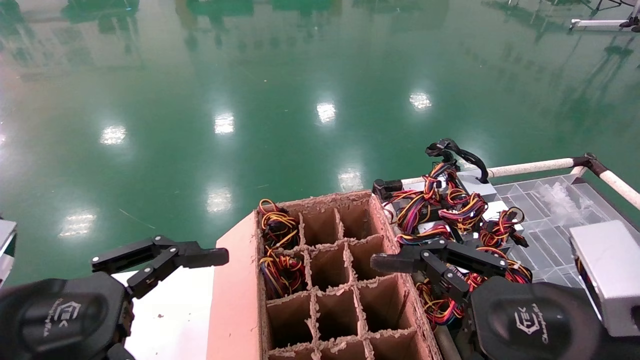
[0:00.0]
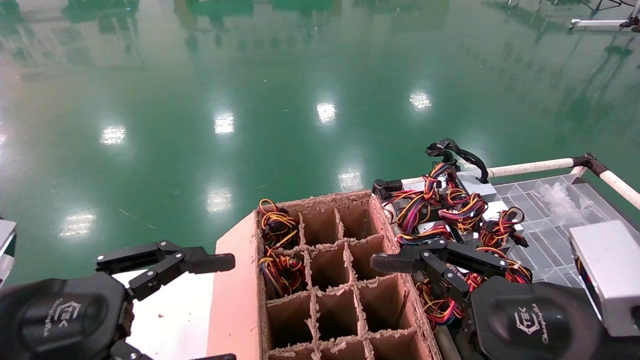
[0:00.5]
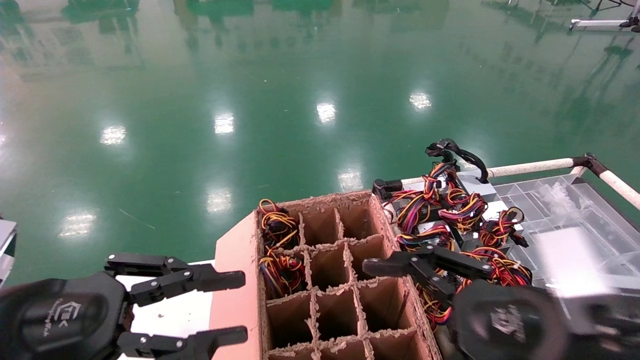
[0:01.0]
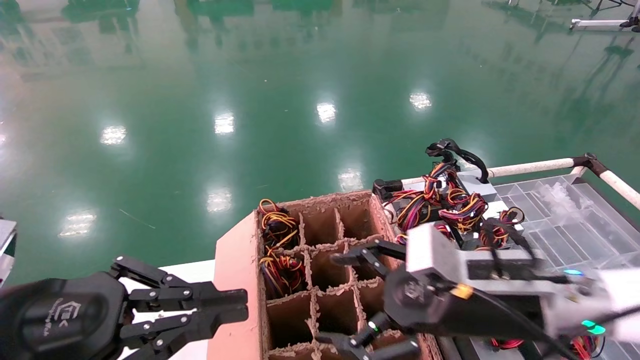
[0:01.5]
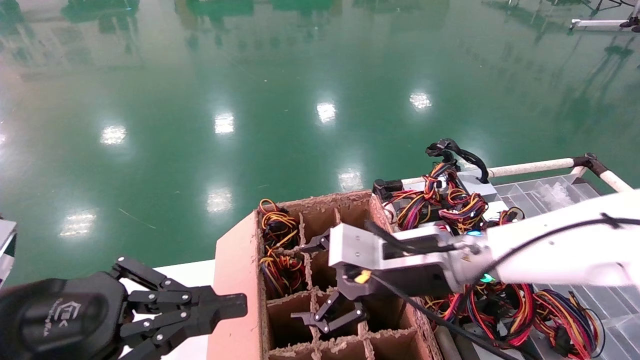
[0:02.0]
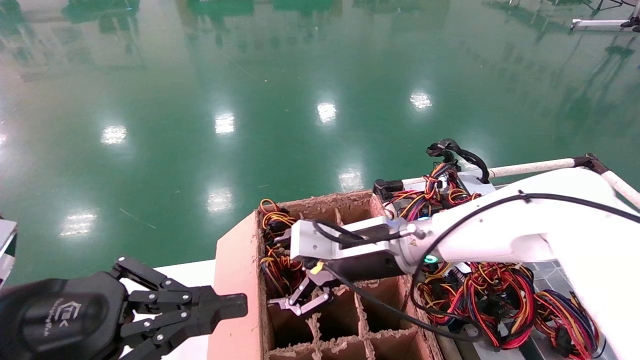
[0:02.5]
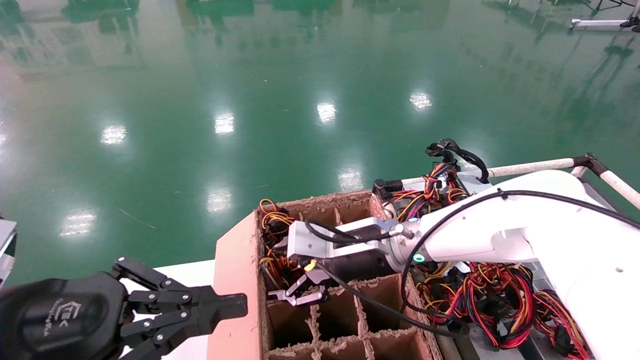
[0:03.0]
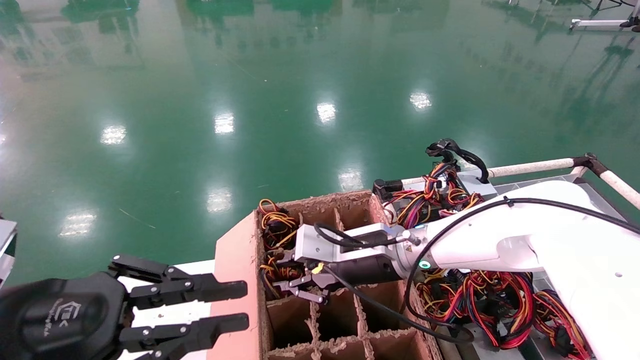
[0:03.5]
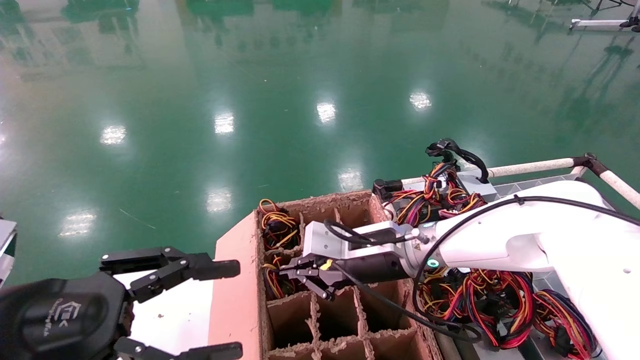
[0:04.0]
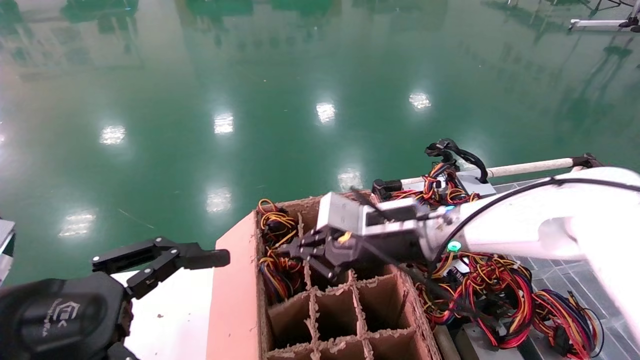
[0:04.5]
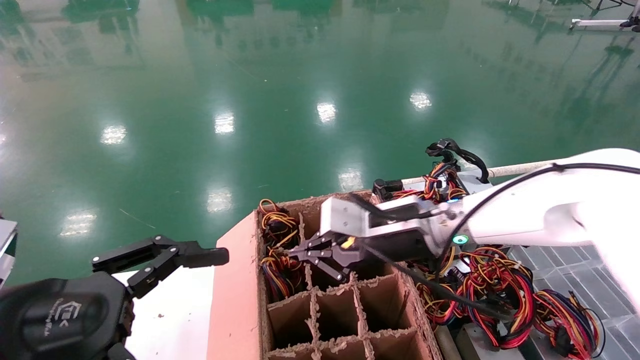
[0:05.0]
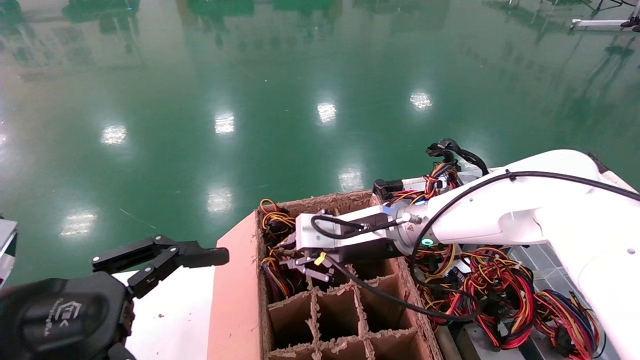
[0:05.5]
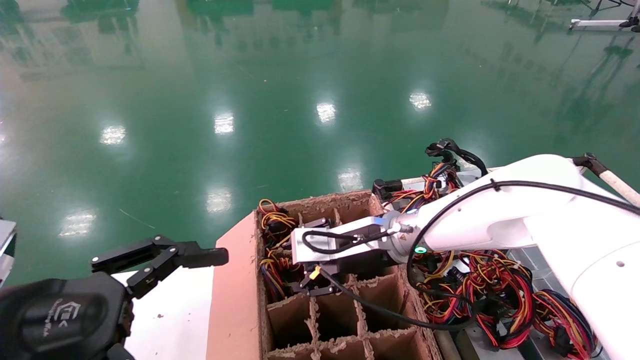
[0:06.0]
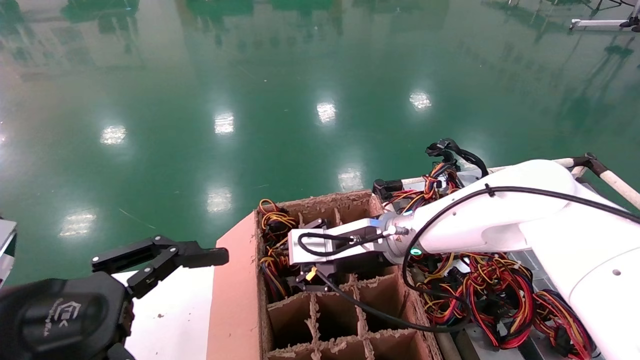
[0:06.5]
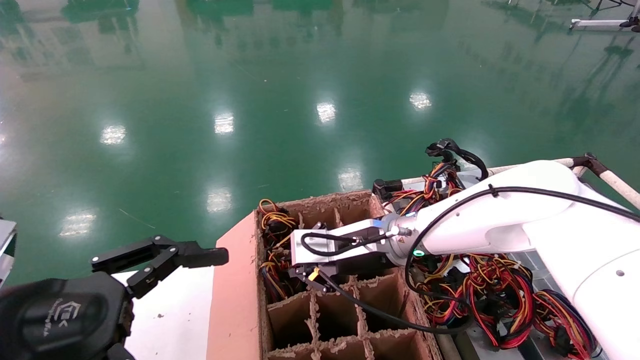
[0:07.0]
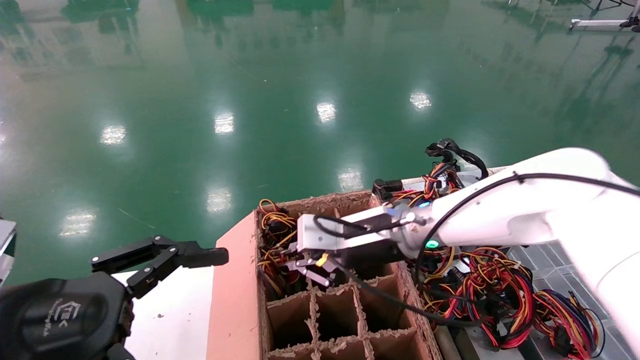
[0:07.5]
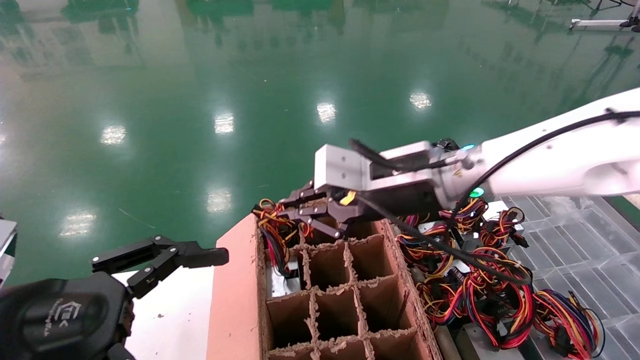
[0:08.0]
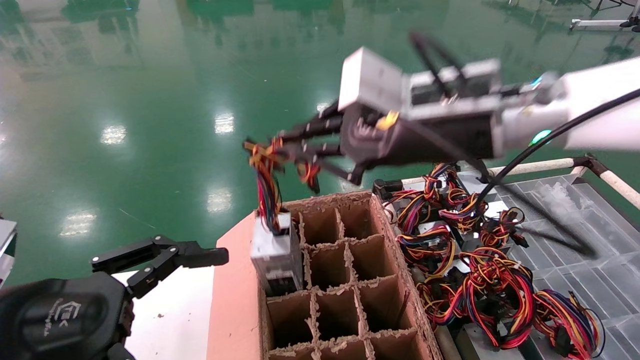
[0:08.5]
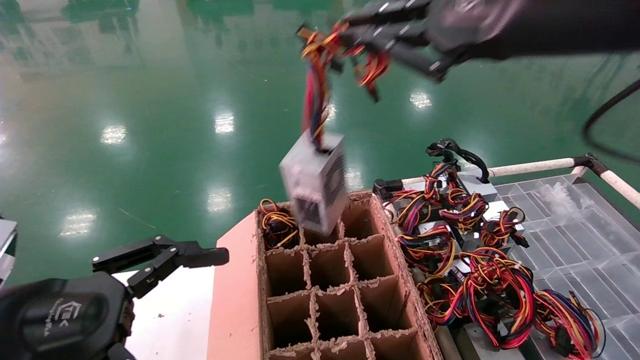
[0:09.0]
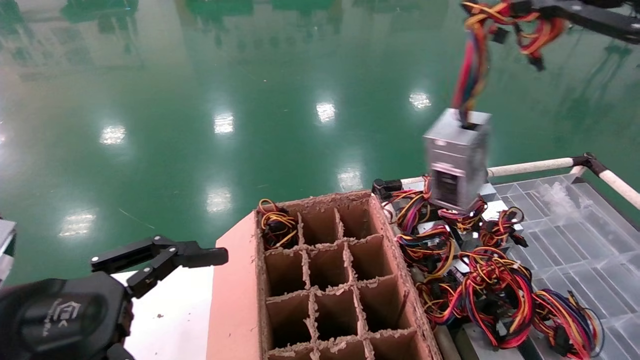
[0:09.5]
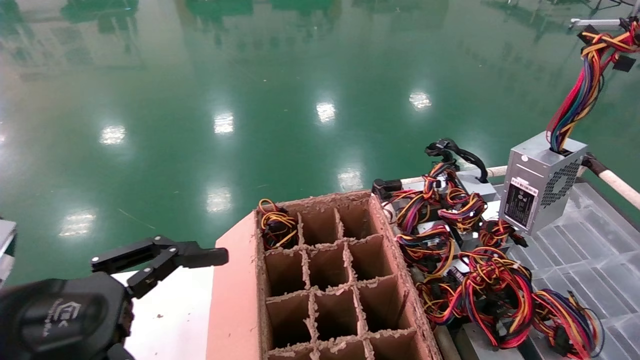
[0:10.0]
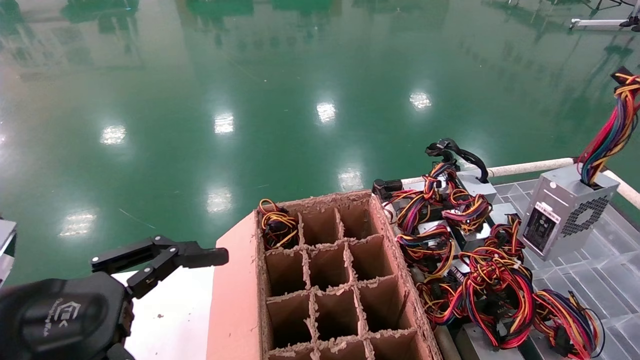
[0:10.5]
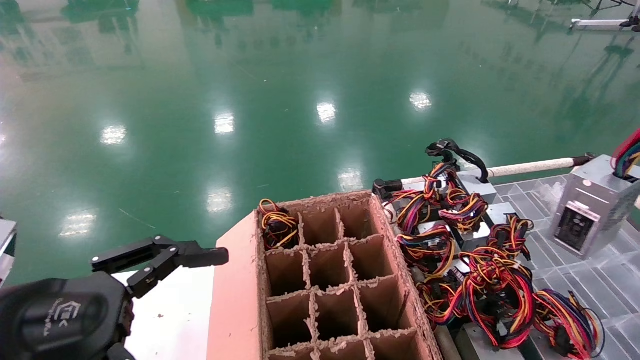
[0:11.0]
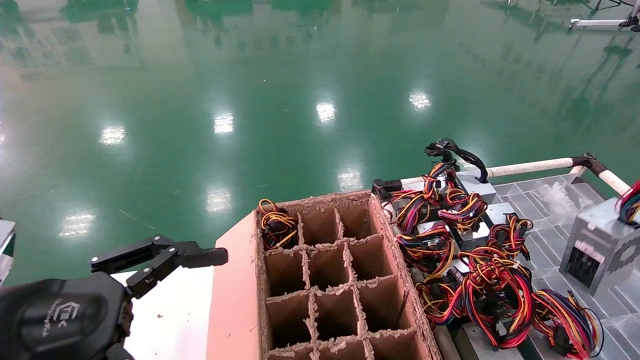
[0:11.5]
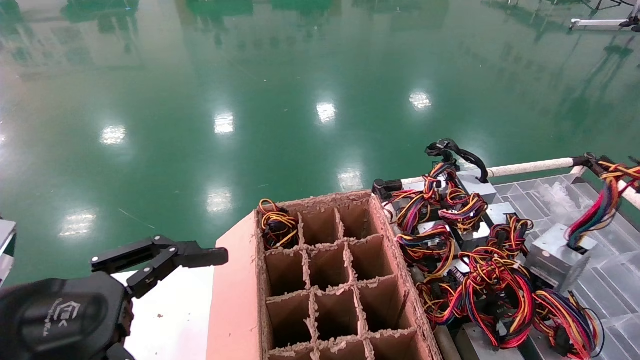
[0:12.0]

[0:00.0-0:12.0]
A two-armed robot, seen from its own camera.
Step, 0:02.0 to 0:07.5: Grab and lift the power supply from the large box.
0:00.0 to 0:02.0: The right gripper heads forward and to the left, covering some 20 cm. The left gripper closes.
0:02.0 to 0:04.0: The right gripper shifts some 5 cm forward, and closes its fingers, while the left gripper opens.
0:04.0 to 0:06.0: The left gripper opens up, while the right gripper opens its fingers.
0:06.0 to 0:08.0: The right gripper shifts approximately 10 cm upward and backward, and closes.
0:08.0 to 0:10.0: The right gripper goes about 40 cm to the right, backward and upward.
0:10.0 to 0:12.0: The right gripper goes roughly 5 cm downward.

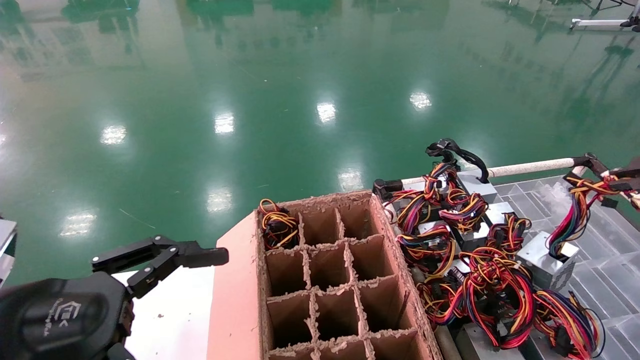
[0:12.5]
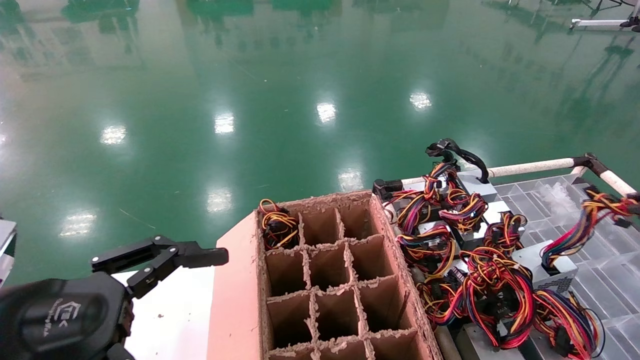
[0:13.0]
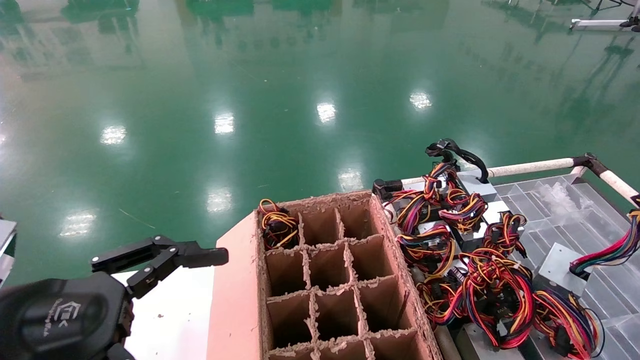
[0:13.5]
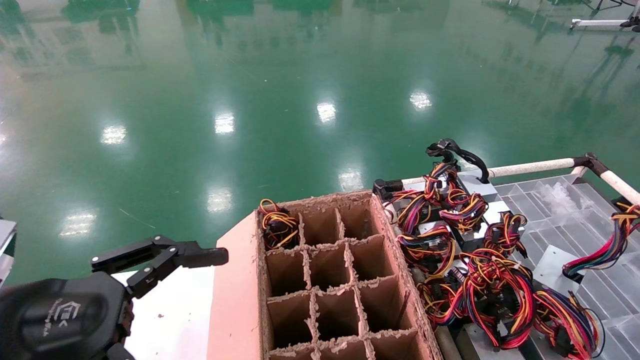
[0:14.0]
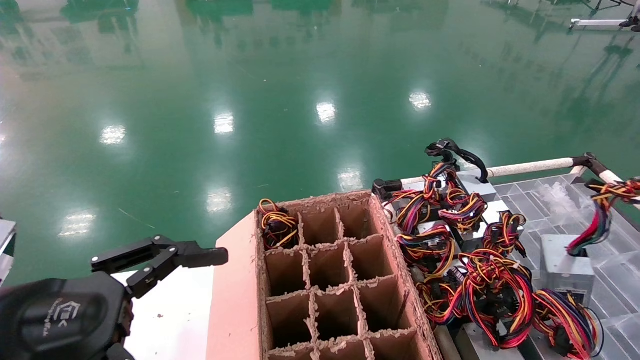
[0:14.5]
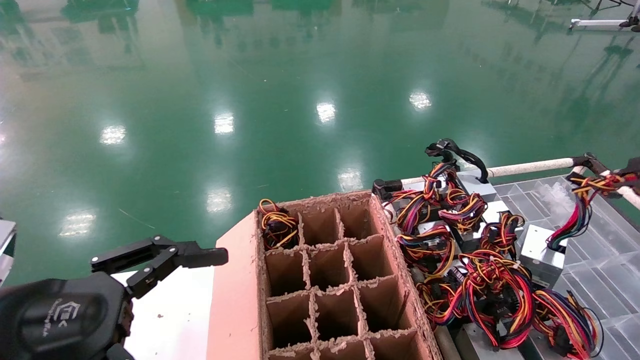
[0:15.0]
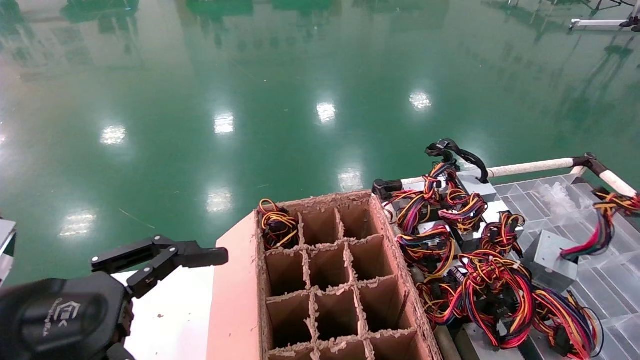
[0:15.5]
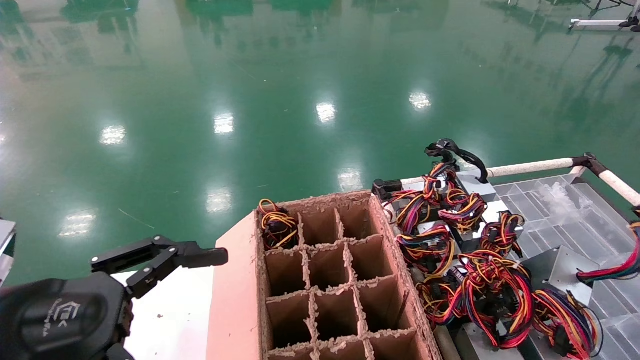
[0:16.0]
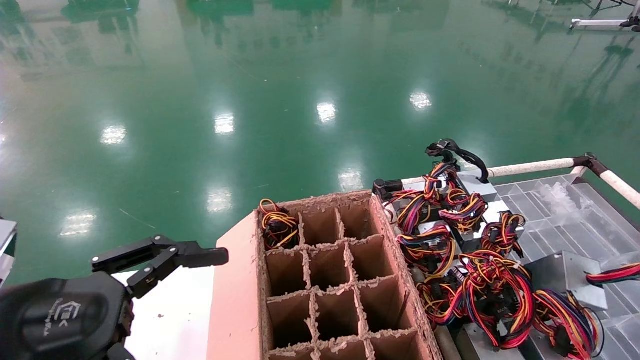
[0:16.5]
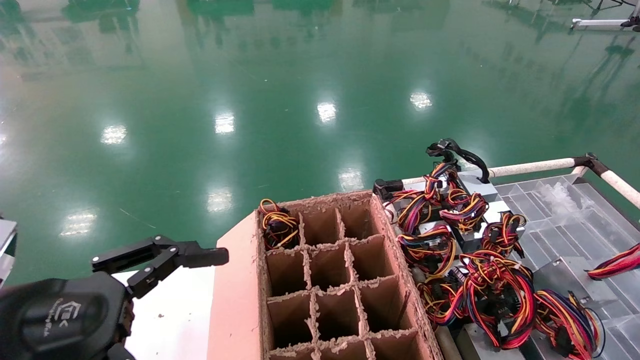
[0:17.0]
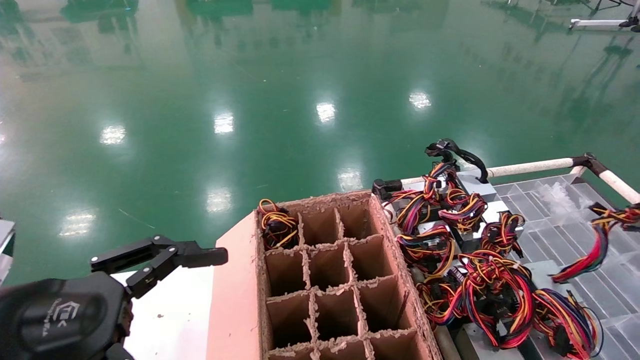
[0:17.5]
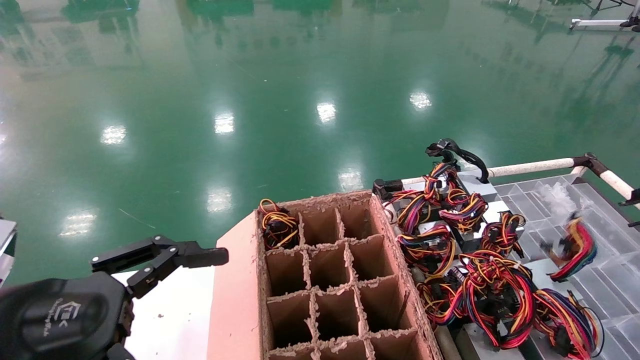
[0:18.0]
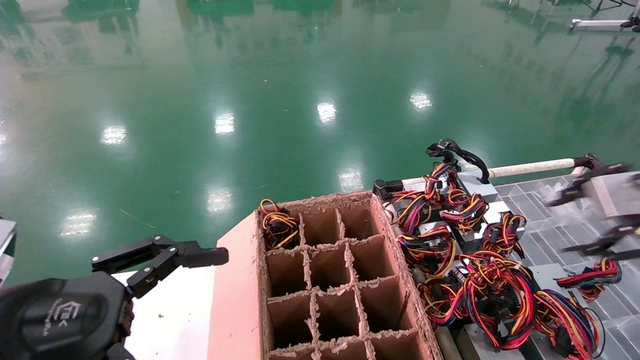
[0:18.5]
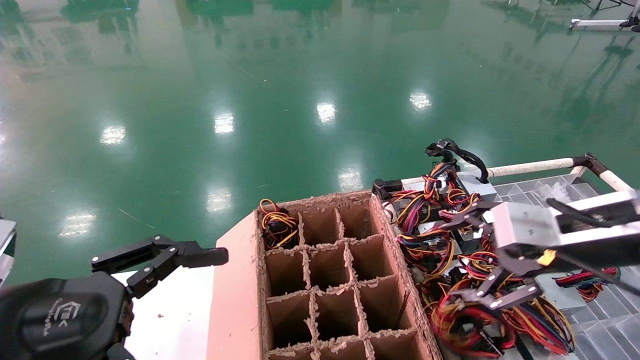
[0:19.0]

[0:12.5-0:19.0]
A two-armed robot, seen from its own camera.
Step, 0:12.5 to 0:17.5: Place the power supply on the operating table.
0:14.5 to 0:17.0: The grippers stay close to where they were, moving slightly.
0:17.0 to 0:19.0: The right gripper is displaced to the left, downward and forward by some 25 cm, and opens up.
